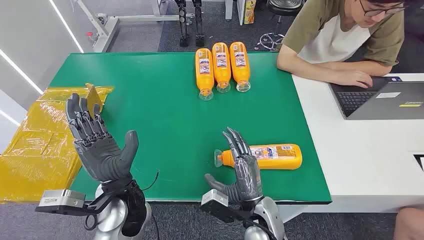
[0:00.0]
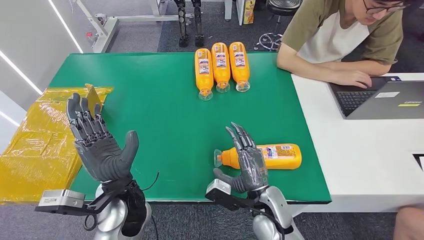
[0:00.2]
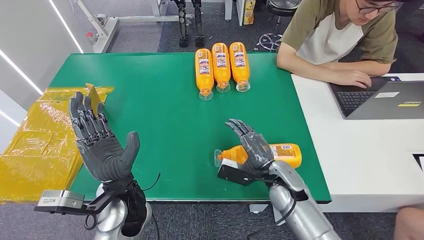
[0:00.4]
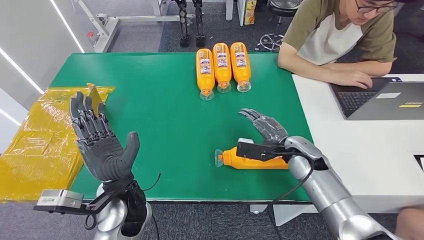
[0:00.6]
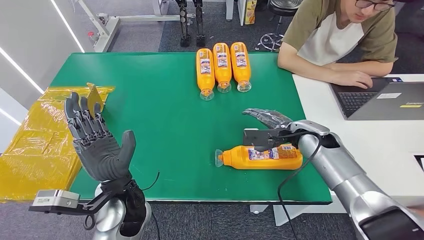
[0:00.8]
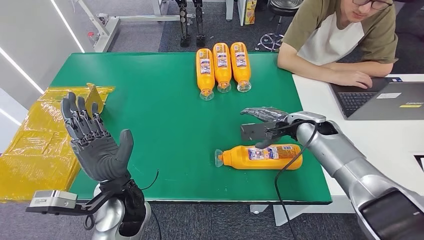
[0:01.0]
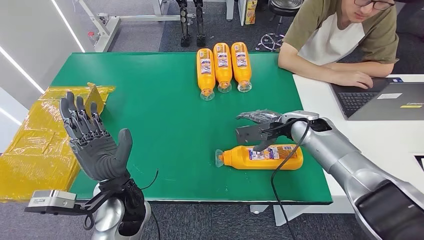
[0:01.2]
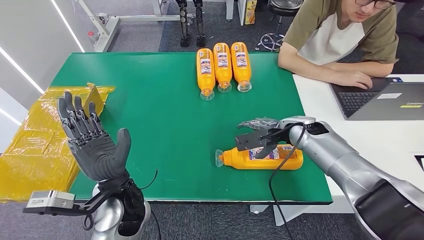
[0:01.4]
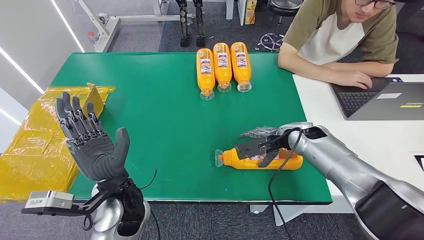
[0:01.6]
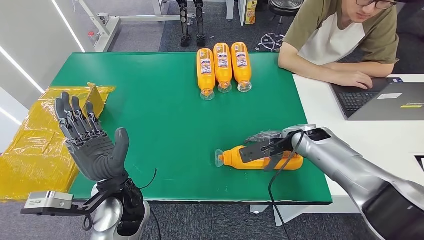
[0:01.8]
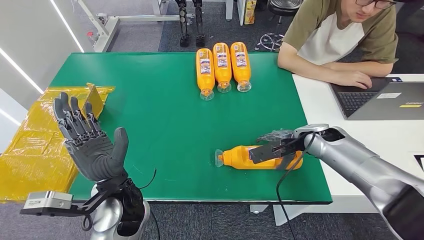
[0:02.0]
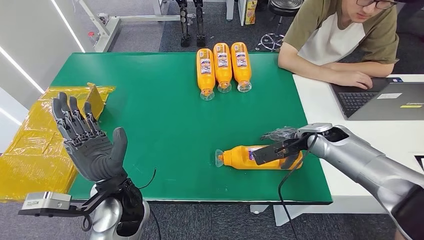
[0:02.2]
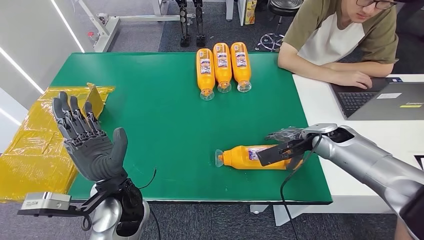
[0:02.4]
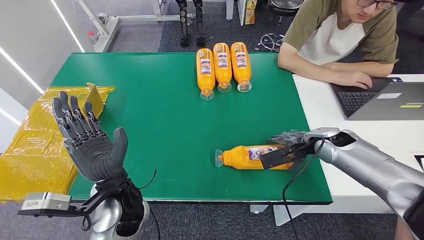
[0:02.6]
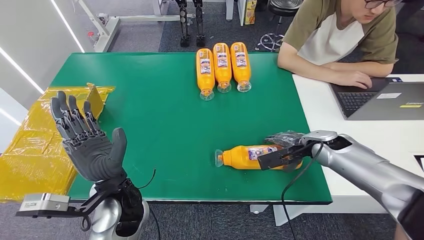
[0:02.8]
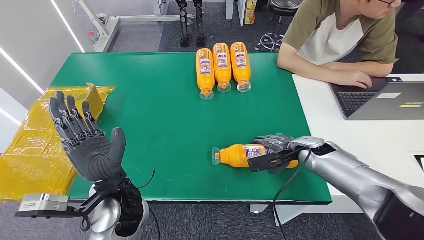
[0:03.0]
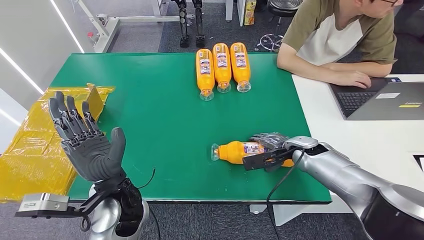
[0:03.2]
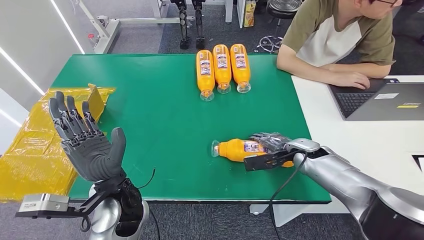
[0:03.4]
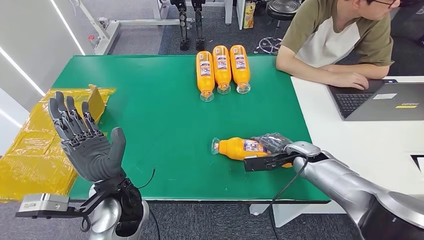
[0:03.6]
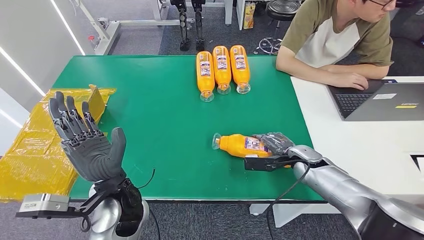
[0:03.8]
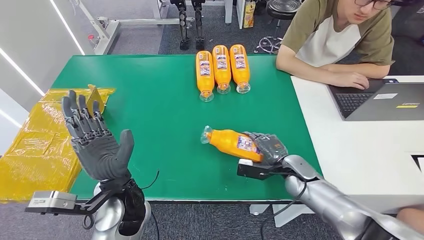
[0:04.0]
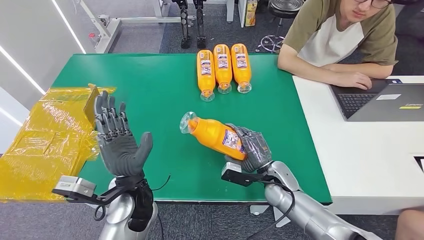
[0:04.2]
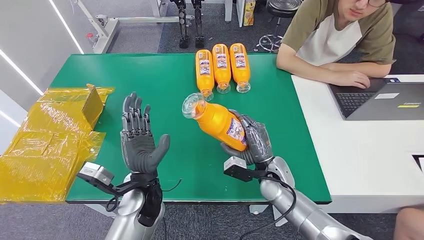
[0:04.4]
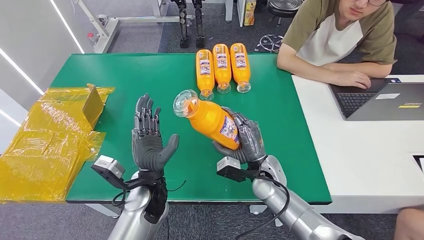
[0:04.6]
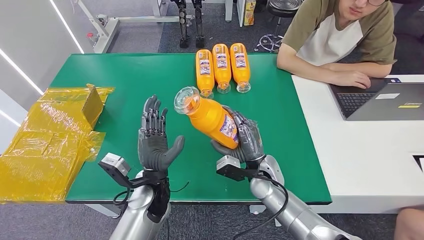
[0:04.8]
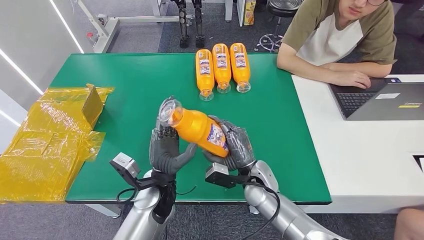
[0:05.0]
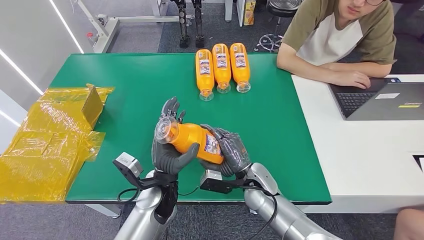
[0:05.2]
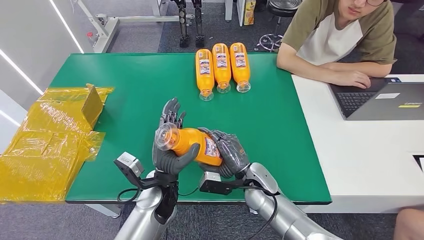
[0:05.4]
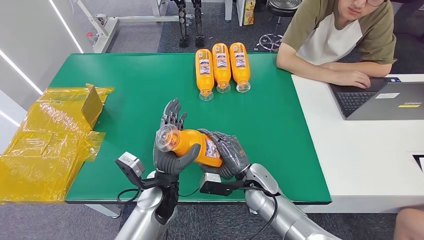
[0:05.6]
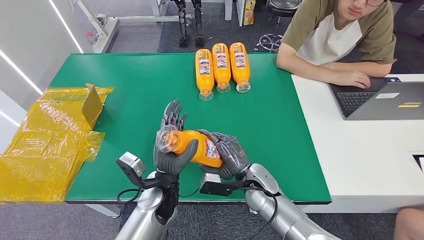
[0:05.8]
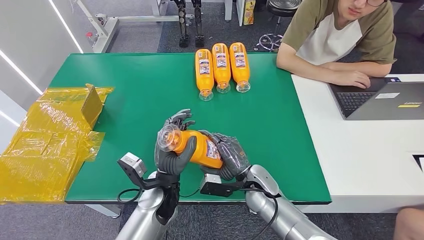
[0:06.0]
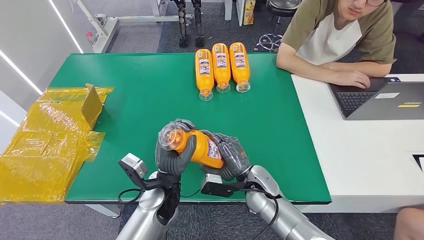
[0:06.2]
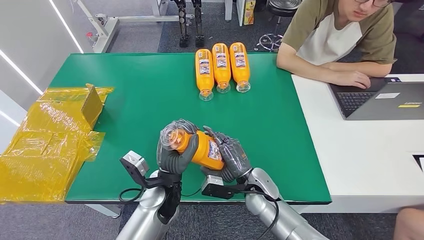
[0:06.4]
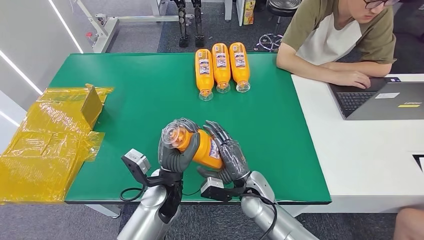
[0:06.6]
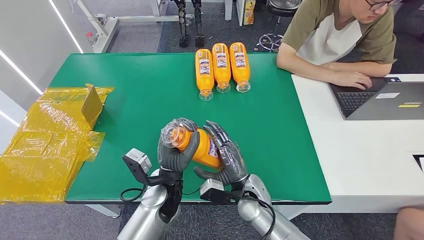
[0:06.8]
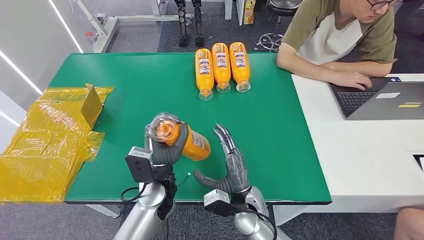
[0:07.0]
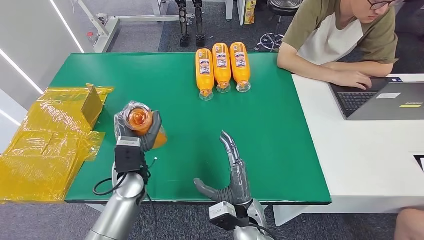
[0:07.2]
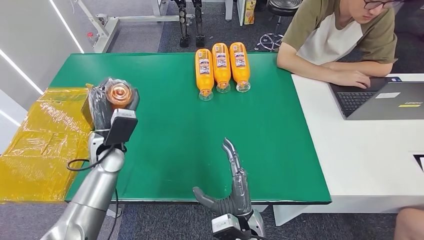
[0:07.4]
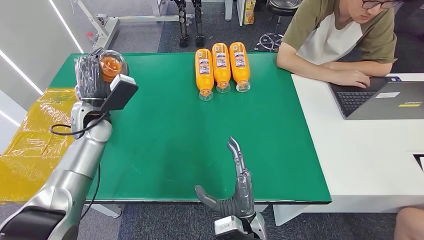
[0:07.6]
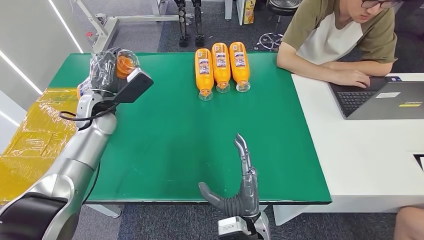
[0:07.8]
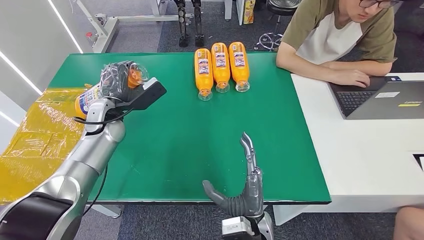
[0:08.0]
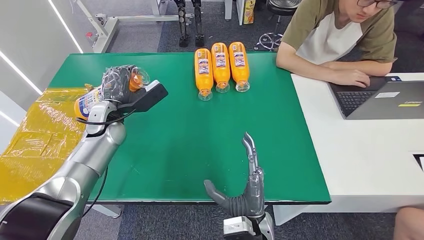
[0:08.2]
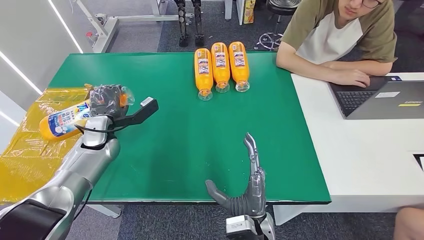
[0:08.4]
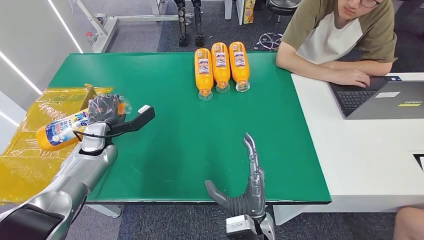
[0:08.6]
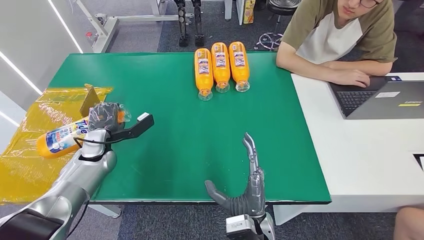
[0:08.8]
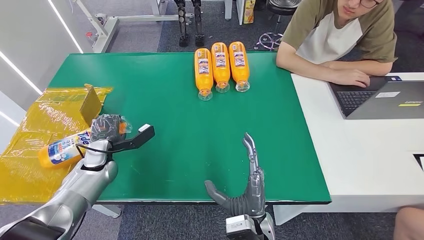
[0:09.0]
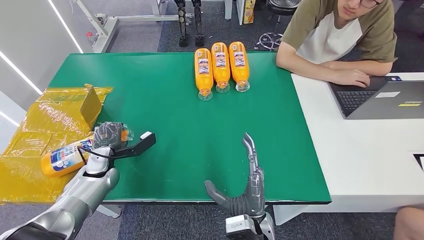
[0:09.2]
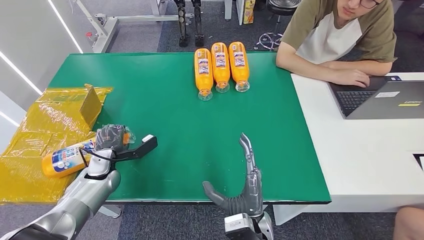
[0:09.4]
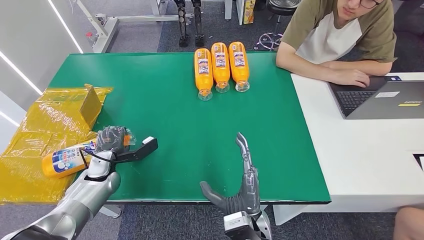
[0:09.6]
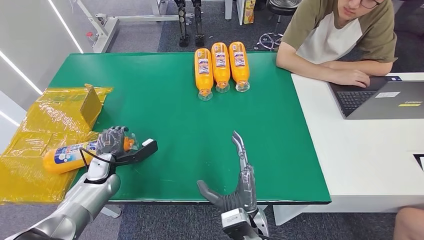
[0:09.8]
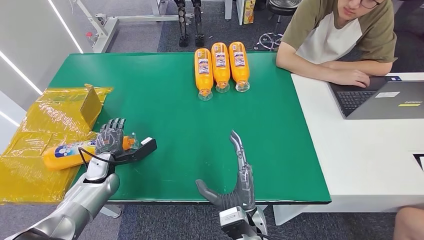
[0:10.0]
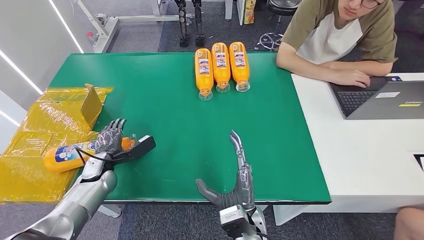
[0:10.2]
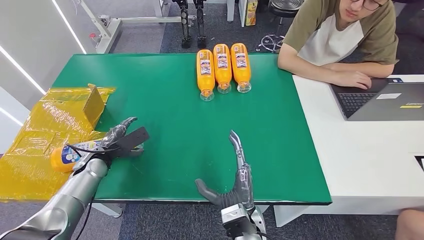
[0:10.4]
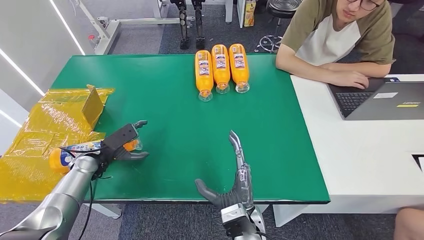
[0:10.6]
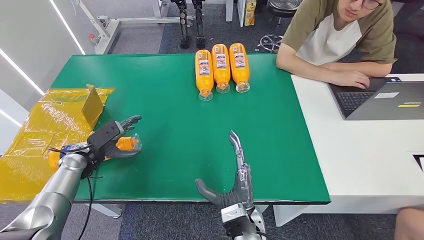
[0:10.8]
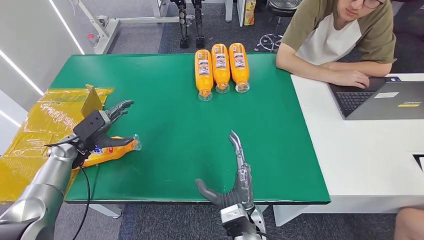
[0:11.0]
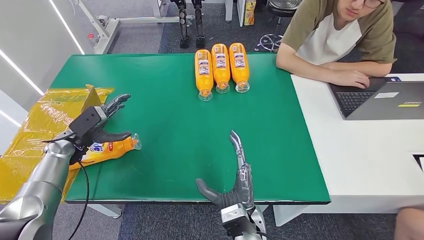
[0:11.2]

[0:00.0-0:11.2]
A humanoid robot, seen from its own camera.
Step, 0:00.0 to 0:04.4: Pick up the bottle from the table.
Step, 0:04.6 to 0:11.2: Turn the bottle to the front side.
0:01.6 to 0:03.2: The right hand moves about 5 cm.
0:04.8 to 0:06.4: The right hand shifts by about 5 cm.
0:08.0 to 0:09.6: The left hand shifts some 20 cm downward, backward and to the left.
0:09.6 to 0:11.2: The left hand moves to the left and upward, approximately 10 cm.
